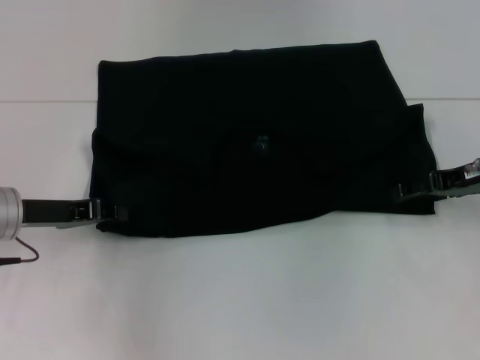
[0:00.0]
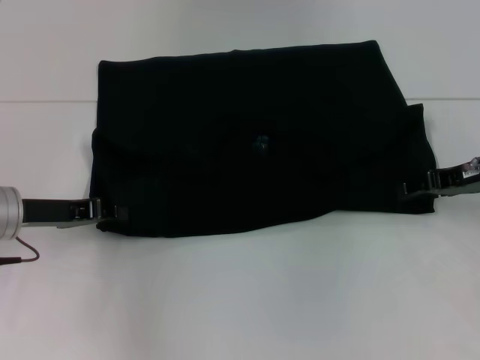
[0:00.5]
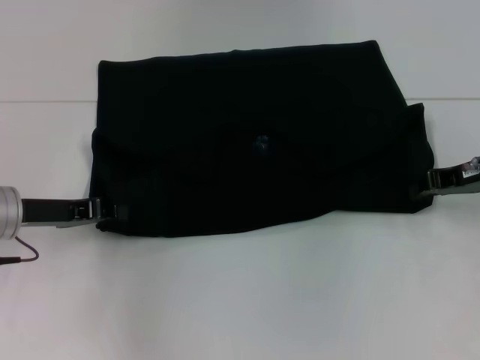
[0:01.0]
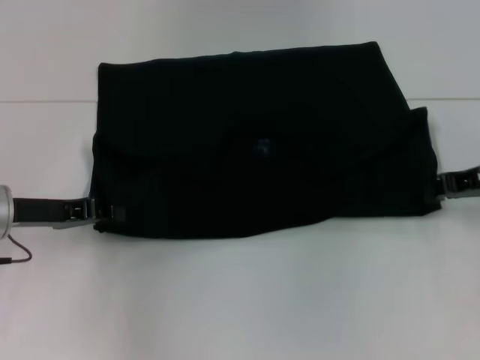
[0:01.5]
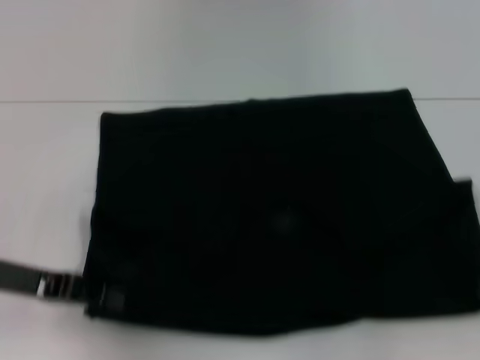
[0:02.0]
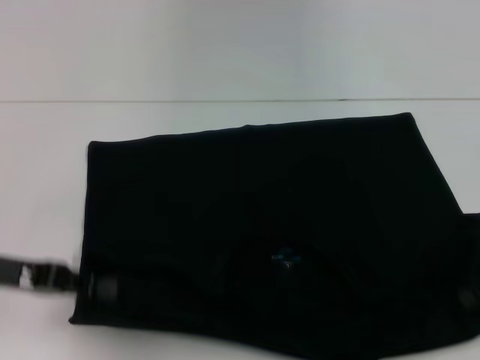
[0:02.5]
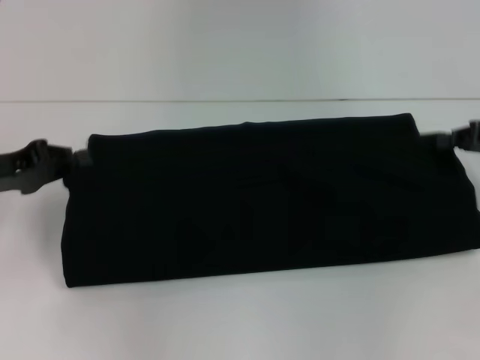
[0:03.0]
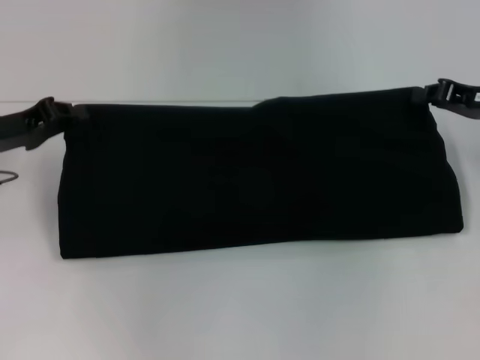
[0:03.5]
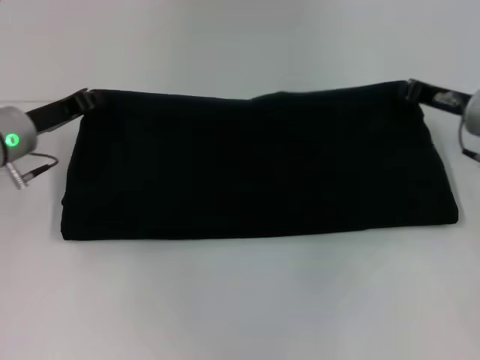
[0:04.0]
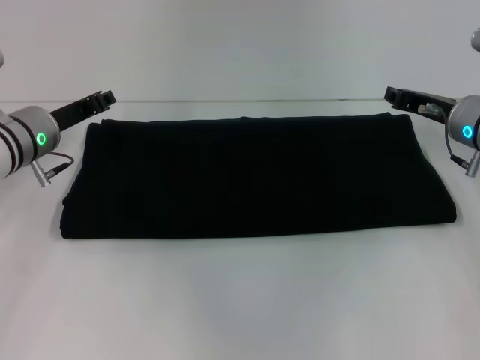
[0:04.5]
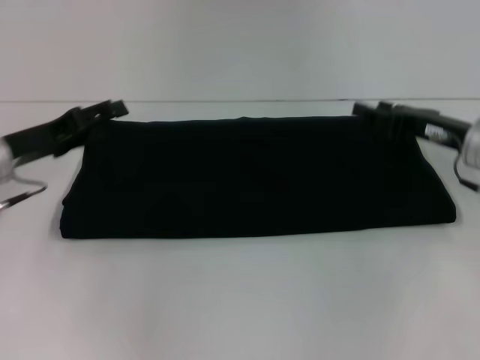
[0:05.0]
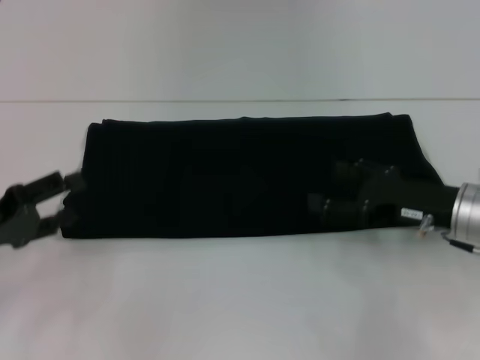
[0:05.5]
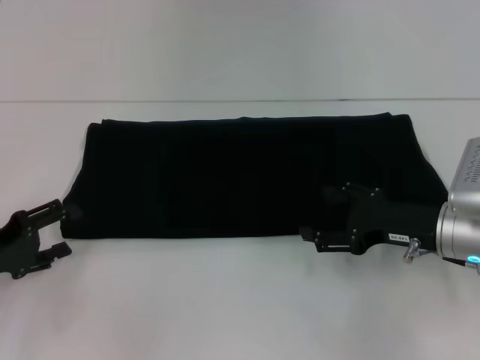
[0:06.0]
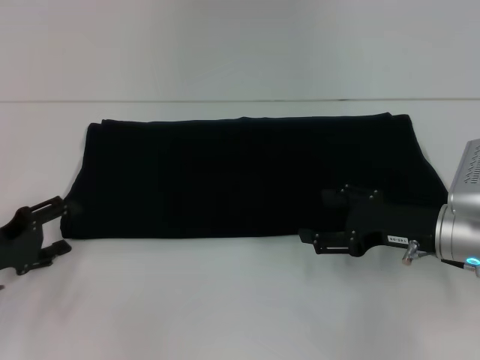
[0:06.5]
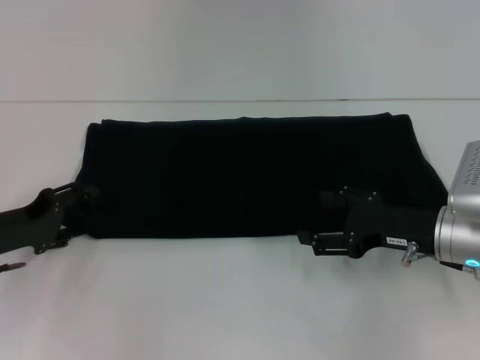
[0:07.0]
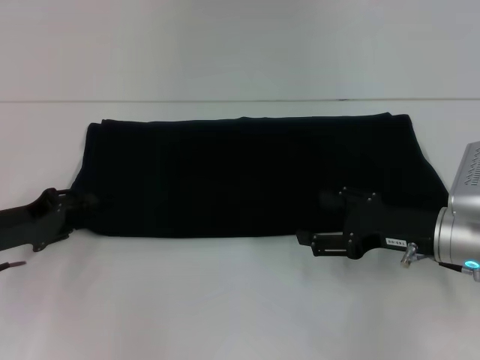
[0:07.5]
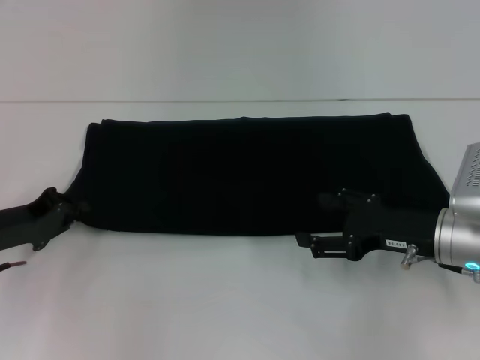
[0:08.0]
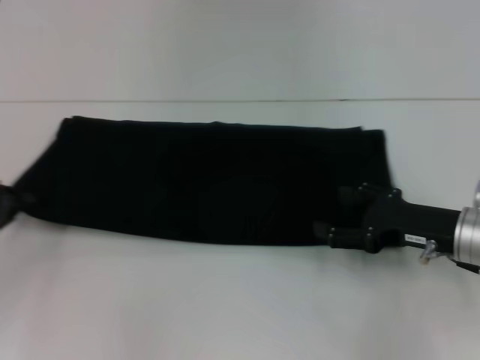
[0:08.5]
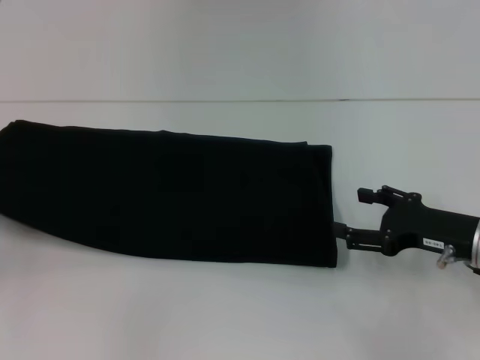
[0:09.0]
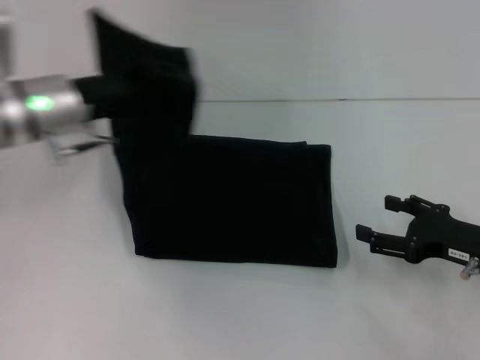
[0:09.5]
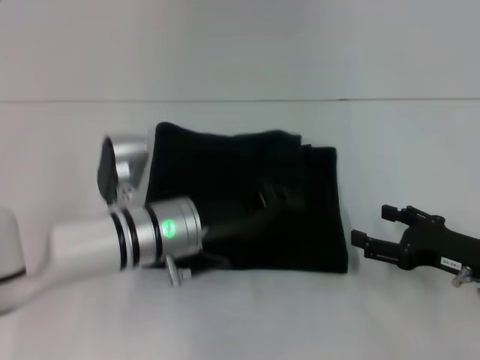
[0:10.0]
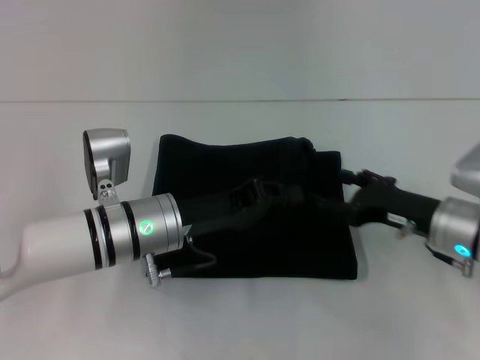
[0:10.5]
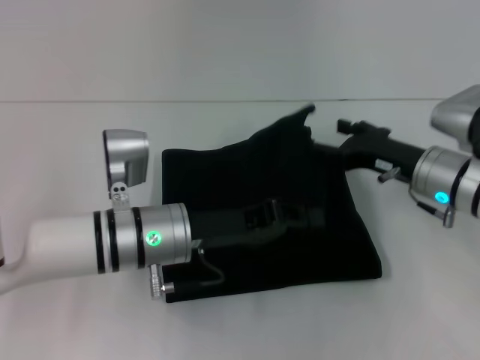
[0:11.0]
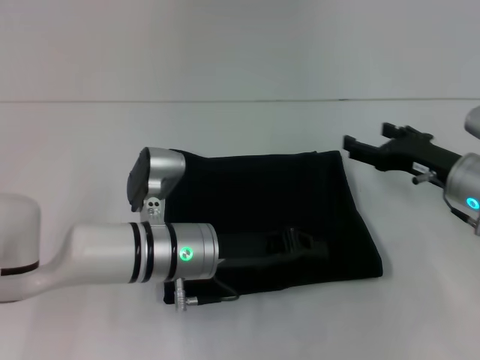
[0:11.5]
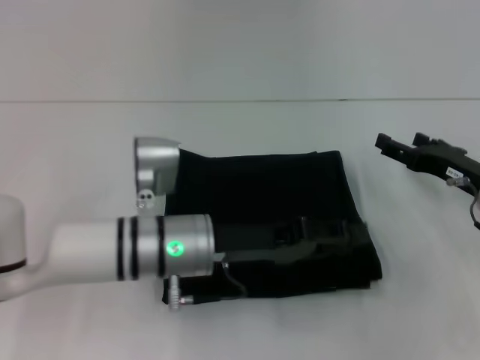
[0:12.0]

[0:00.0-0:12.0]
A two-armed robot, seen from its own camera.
Step, 0:00.0 to 0:02.0: Pull the clothes with your left hand.
Step, 0:00.0 to 0:02.0: Pull the clothes with your right hand.
Step, 0:02.5 to 0:04.0: Fold the clothes with your left hand.
Step, 0:02.5 to 0:04.0: Fold the clothes with your right hand.
Step, 0:04.5 to 0:11.5: Pull the clothes with your left hand.
0:00.0 to 0:02.0: The left gripper is displaced backward by some 5 cm. The right gripper shifts about 10 cm backward and to the right, and closes up.
0:02.0 to 0:04.0: The right gripper moves forward and to the left, about 15 cm, while the left gripper travels forward by about 10 cm.
0:04.0 to 0:06.0: The right gripper goes some 10 cm backward and downward, and opens up, while the left gripper travels backward and to the left by some 15 cm, and opens.
0:06.0 to 0:08.0: The left gripper moves some 5 cm, and closes its fingers.
0:08.0 to 0:10.0: The right gripper shifts some 5 cm to the right; the left gripper goes roughly 20 cm to the right.
0:10.0 to 0:12.0: The right gripper heads forward, covering some 5 cm.

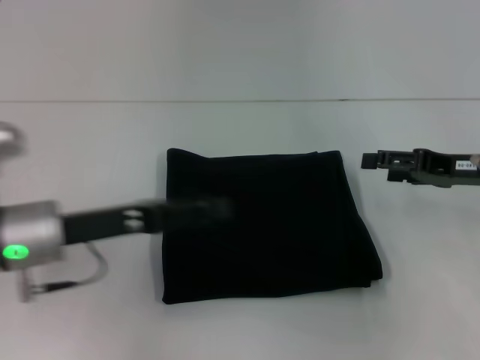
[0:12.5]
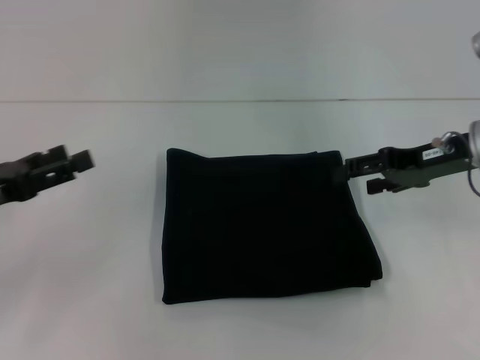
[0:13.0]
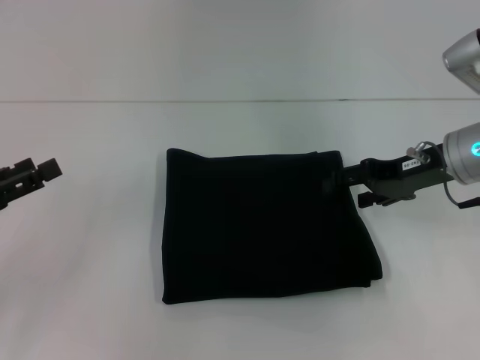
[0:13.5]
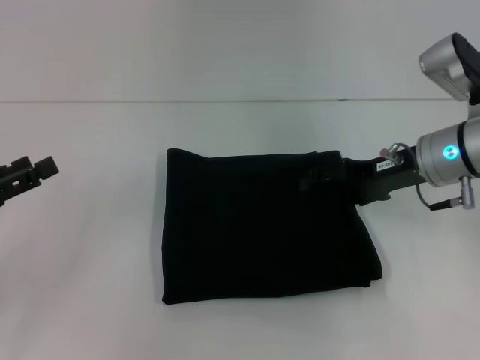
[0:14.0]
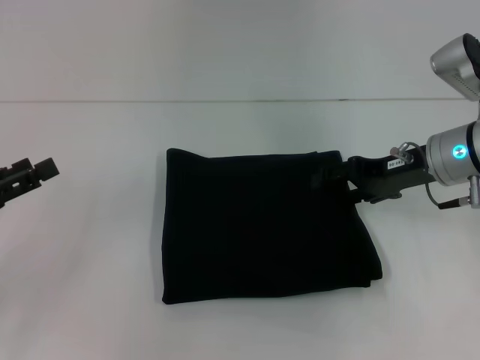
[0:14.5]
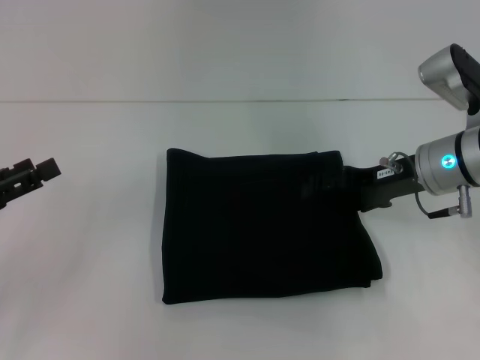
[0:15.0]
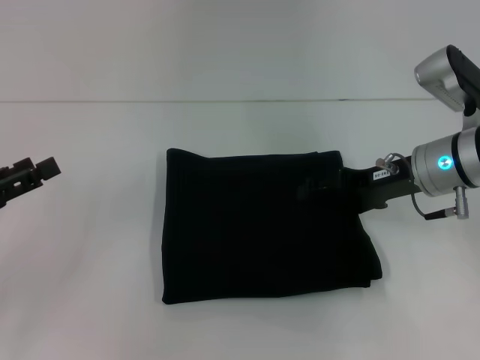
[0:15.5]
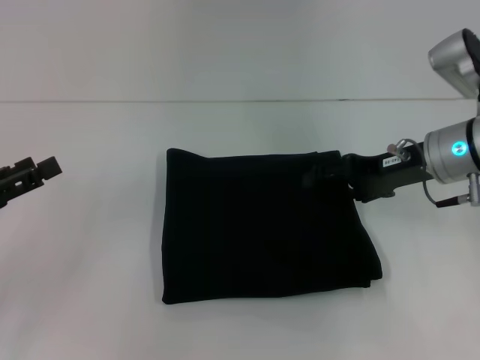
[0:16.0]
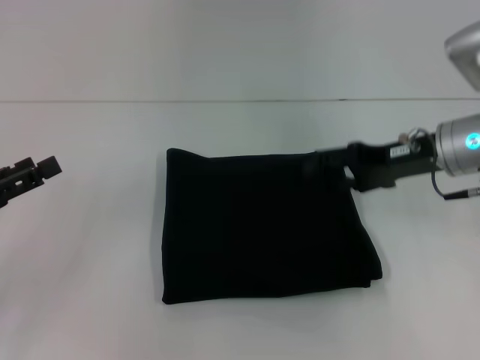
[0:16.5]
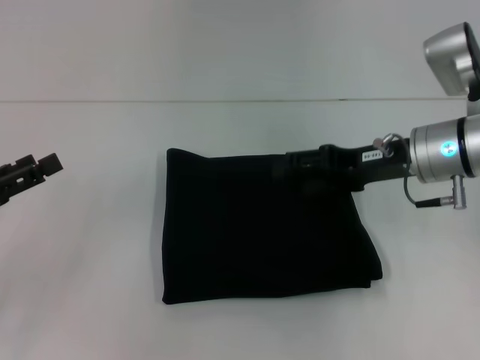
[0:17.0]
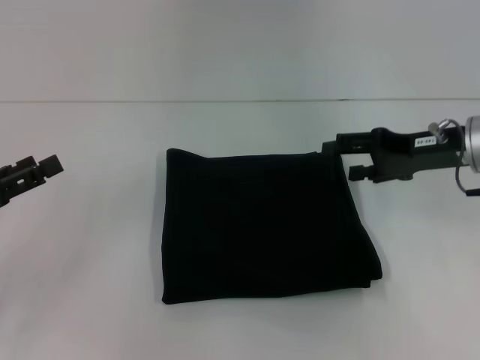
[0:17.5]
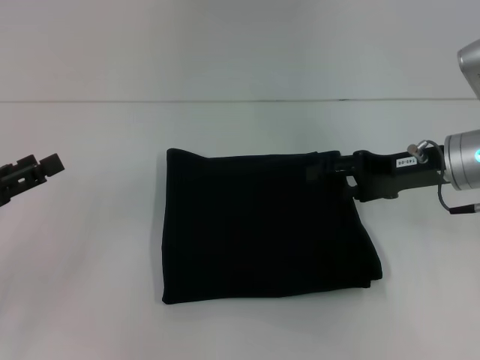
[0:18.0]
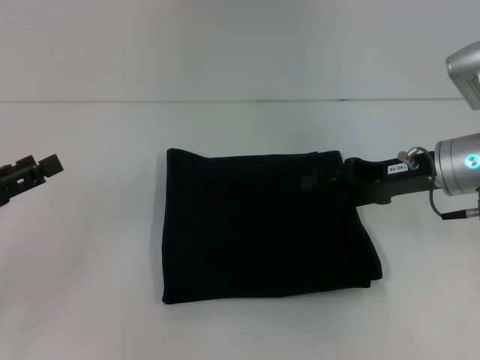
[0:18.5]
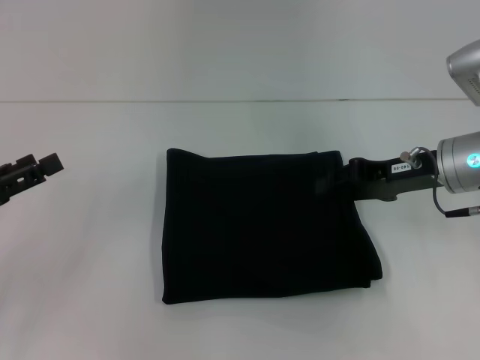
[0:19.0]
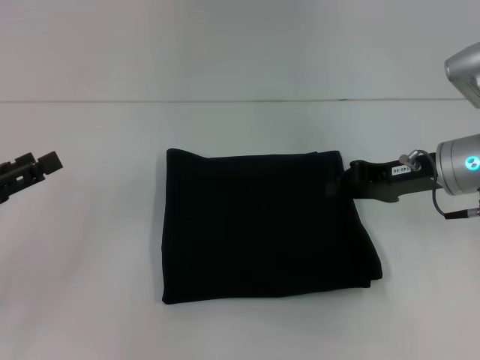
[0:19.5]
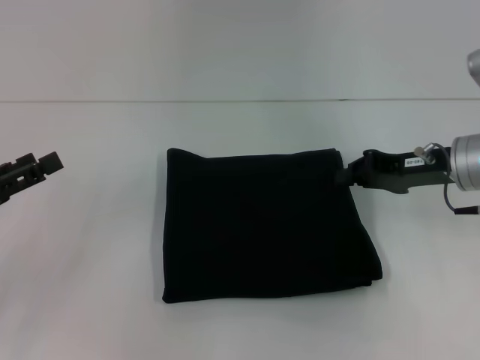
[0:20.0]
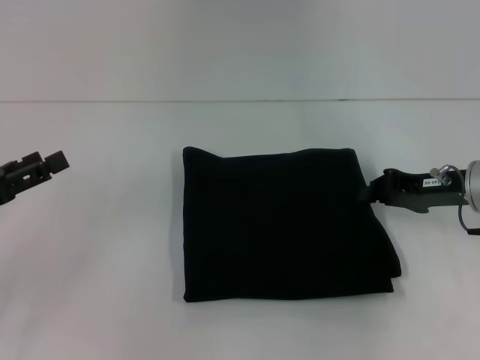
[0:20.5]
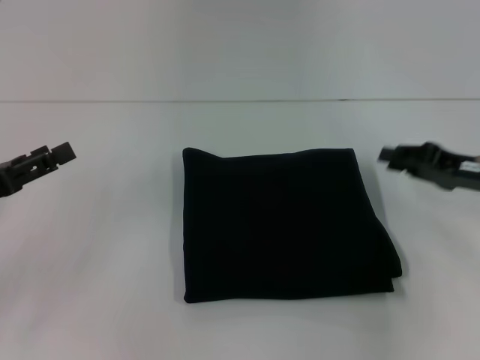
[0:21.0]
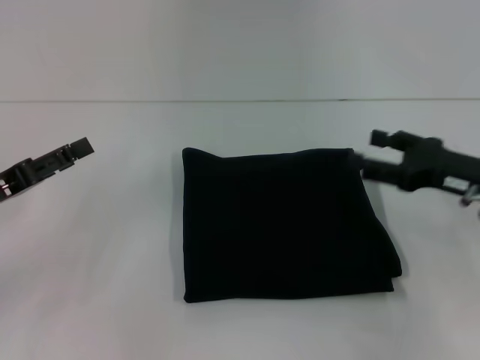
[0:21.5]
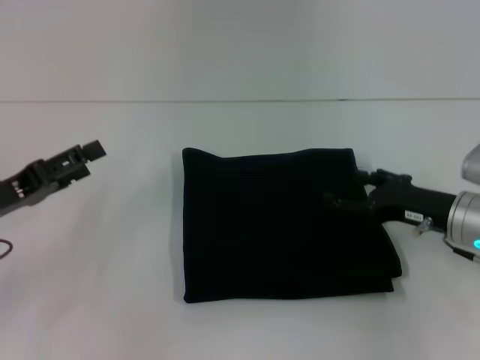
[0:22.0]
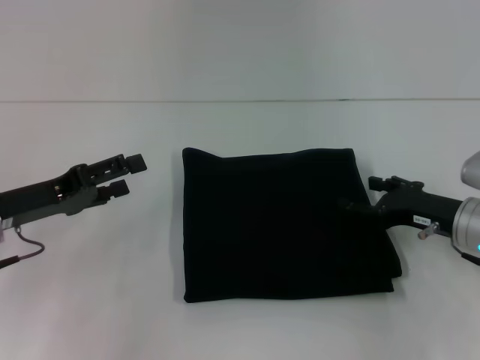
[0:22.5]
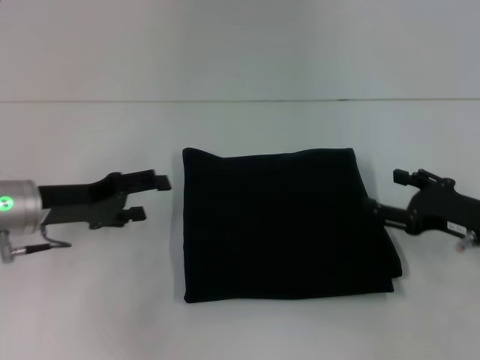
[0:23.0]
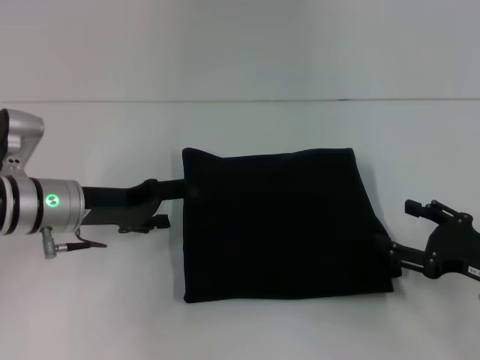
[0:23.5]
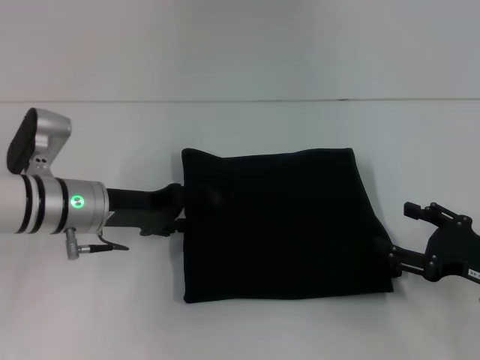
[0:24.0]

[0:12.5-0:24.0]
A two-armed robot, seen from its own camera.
0:12.5 to 0:14.5: The right gripper travels to the left by approximately 5 cm; the left gripper heads to the left, covering some 15 cm.
0:14.5 to 0:18.5: There are only small adjustments of the grippers.
0:18.5 to 0:20.0: The right gripper closes up.
0:20.0 to 0:22.0: The right gripper moves downward, about 5 cm, and opens its fingers.
0:22.0 to 0:24.0: The right gripper is displaced backward and to the right by about 10 cm, while the left gripper moves to the right and forward, roughly 15 cm.

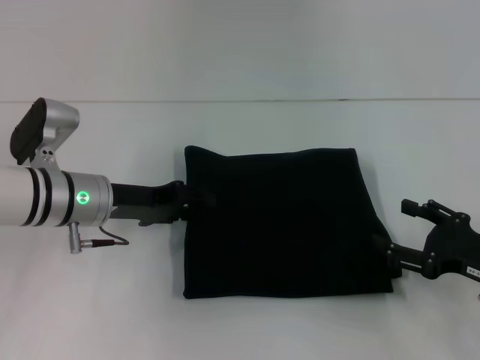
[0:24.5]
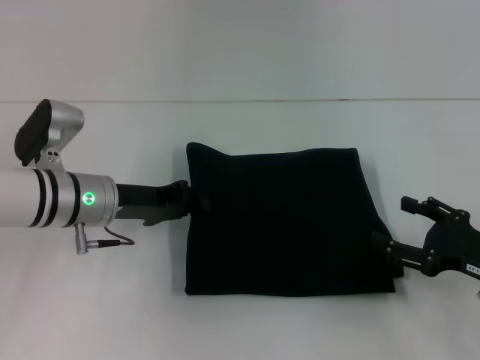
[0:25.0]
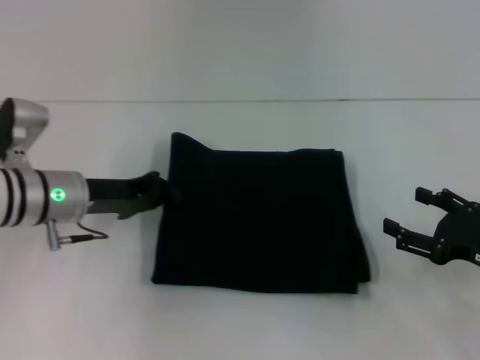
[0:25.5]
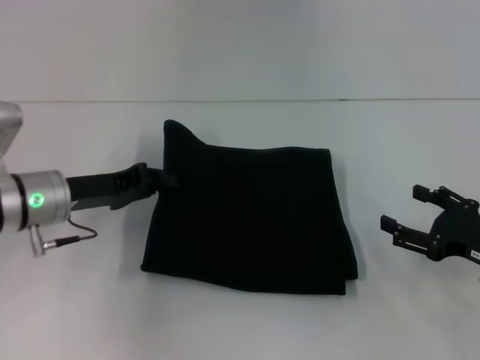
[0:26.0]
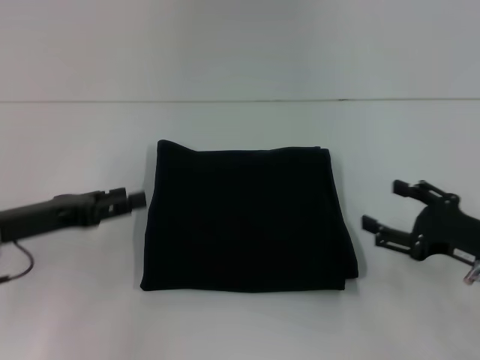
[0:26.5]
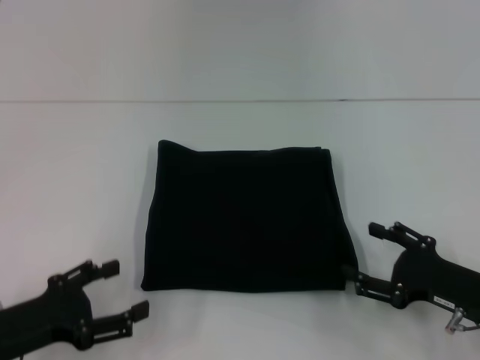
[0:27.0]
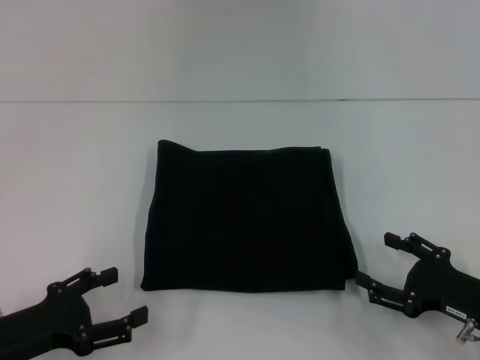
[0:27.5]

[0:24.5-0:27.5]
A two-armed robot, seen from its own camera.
0:24.5 to 0:26.0: The left gripper closes up.
0:26.0 to 0:27.5: The left gripper is displaced backward by some 15 cm, and opens, while the right gripper moves about 5 cm.
